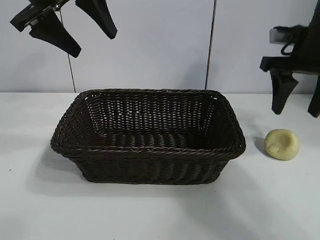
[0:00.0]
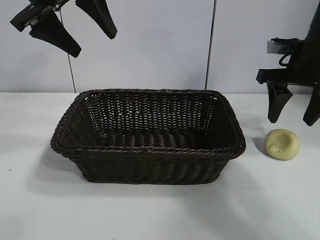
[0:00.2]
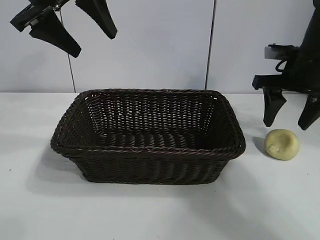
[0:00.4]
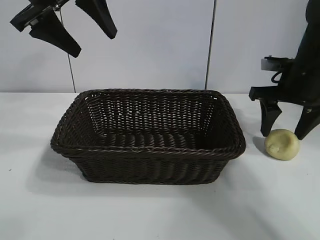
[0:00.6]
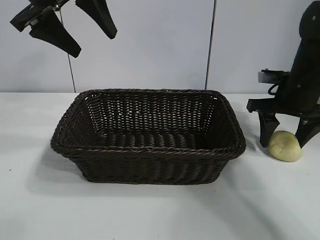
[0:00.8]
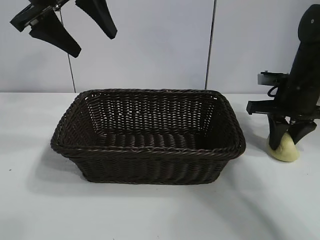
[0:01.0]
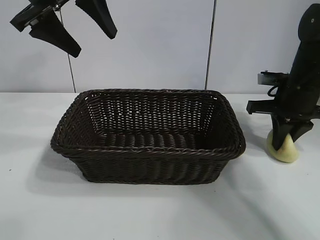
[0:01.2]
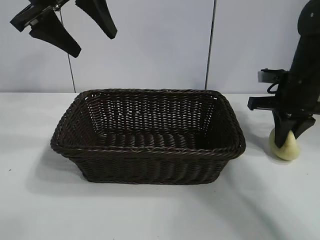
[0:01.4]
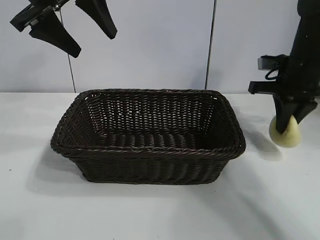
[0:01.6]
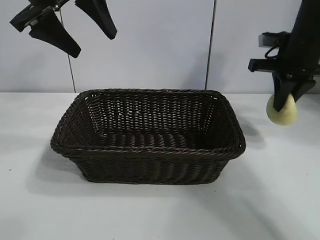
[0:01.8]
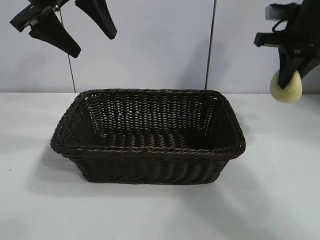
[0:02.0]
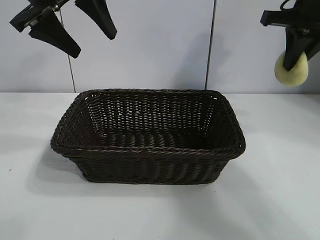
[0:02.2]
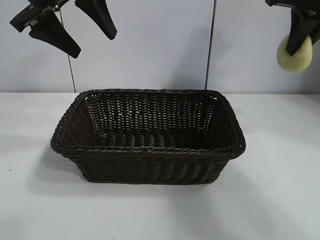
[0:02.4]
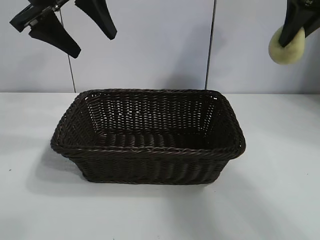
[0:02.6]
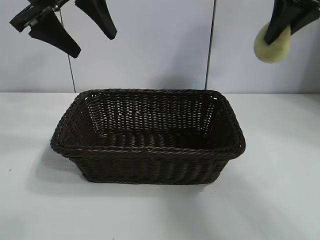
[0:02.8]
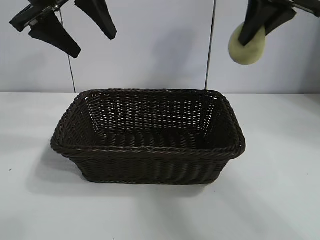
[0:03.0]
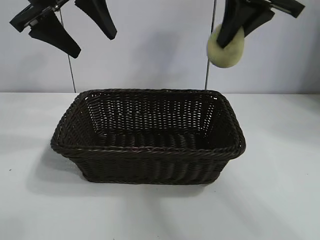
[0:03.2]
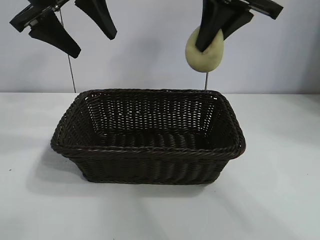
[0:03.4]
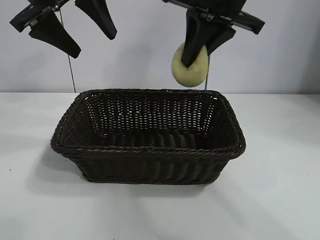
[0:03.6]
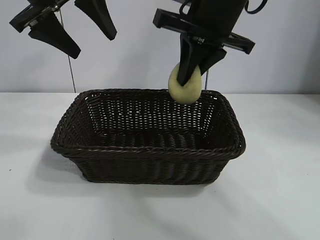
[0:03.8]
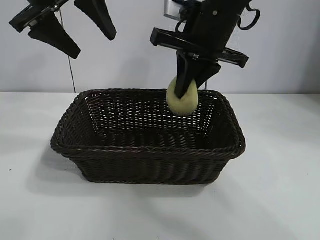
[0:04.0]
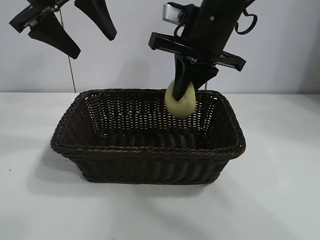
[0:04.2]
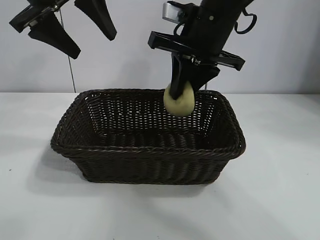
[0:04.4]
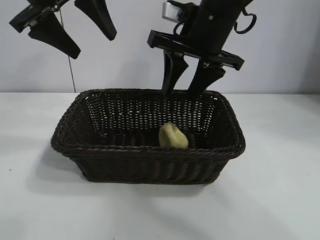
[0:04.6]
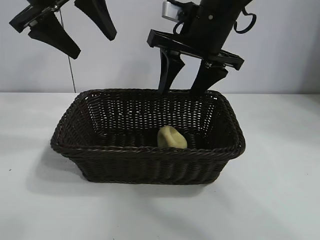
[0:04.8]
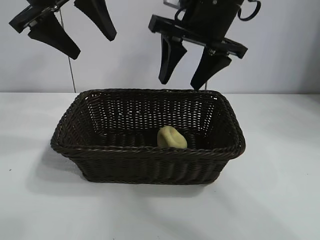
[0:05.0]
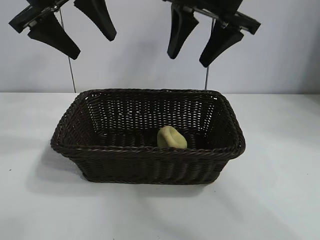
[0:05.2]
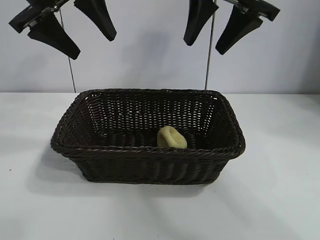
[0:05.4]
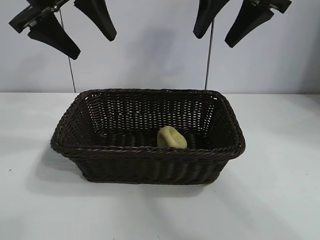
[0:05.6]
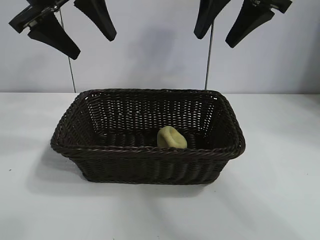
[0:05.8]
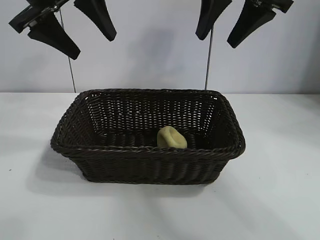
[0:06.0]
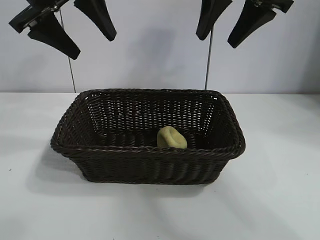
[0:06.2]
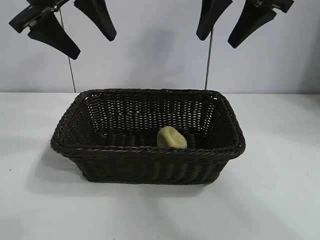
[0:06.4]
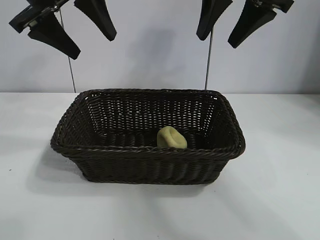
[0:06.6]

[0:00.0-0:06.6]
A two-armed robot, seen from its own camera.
Task of the whole recording: pick up the egg yolk pastry and put it into the basket.
Step, 0:01.4 to 0:04.6: Place the egg yolk pastry in the basket with right gripper.
